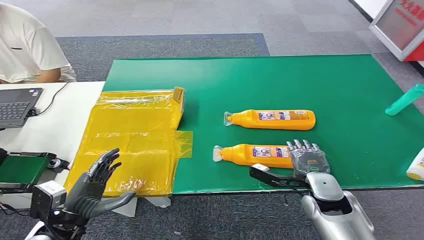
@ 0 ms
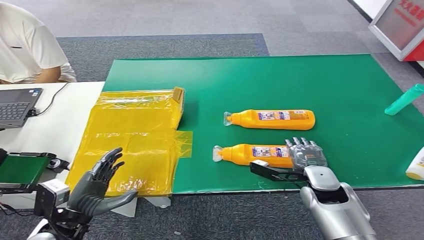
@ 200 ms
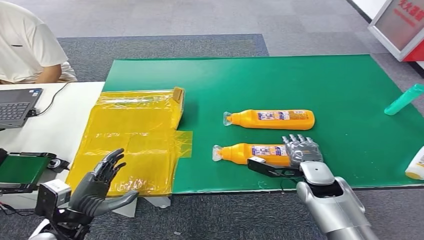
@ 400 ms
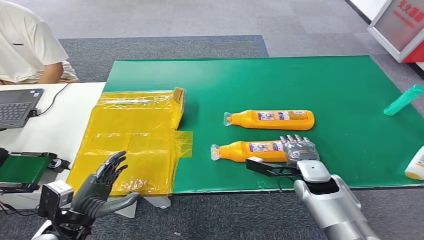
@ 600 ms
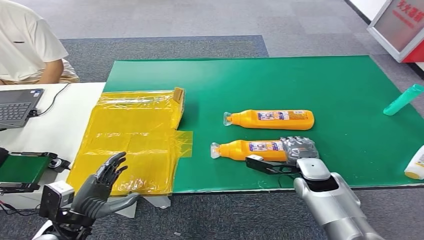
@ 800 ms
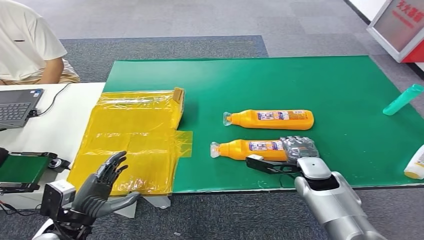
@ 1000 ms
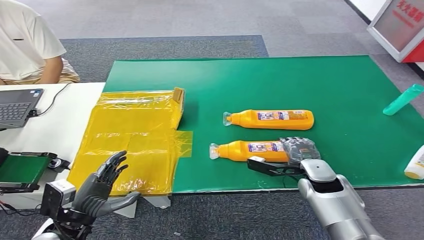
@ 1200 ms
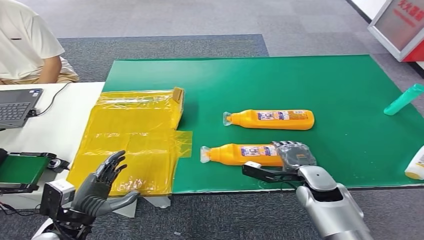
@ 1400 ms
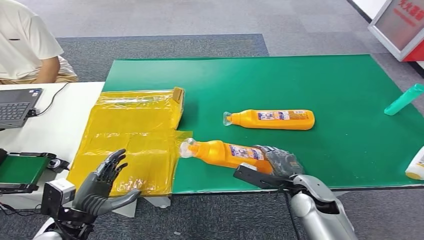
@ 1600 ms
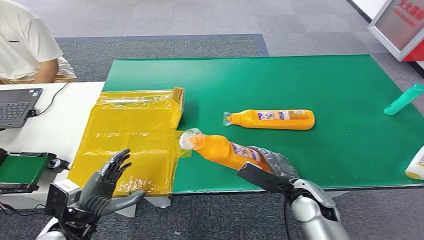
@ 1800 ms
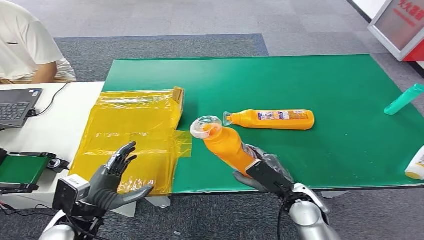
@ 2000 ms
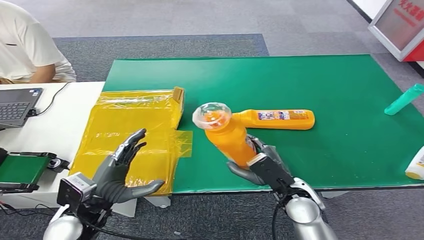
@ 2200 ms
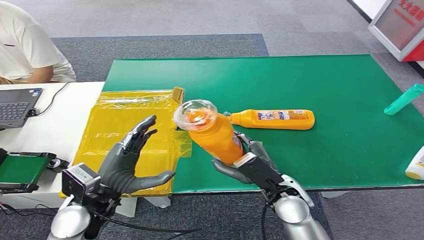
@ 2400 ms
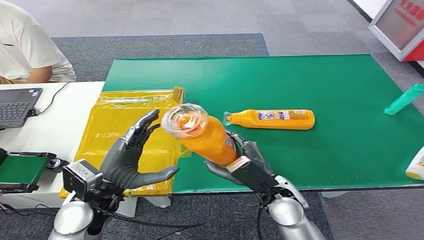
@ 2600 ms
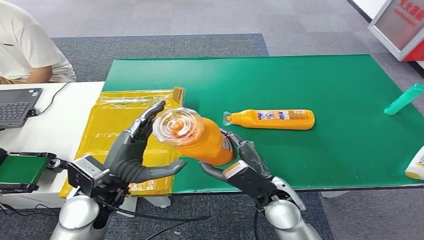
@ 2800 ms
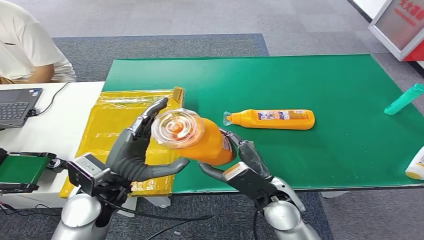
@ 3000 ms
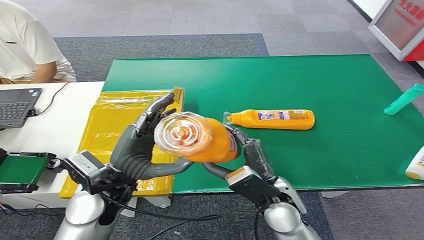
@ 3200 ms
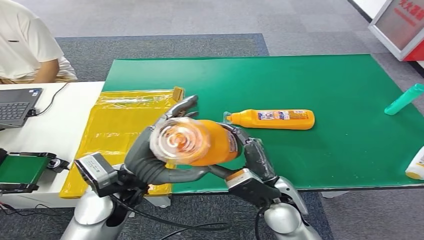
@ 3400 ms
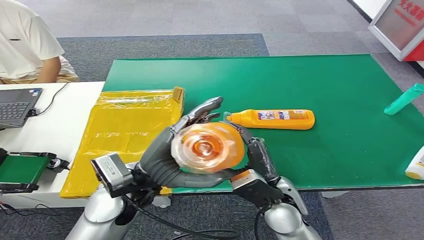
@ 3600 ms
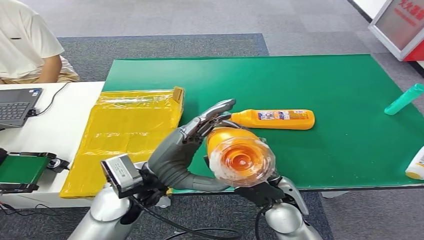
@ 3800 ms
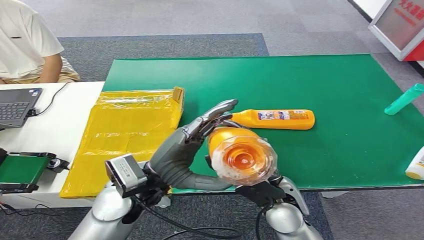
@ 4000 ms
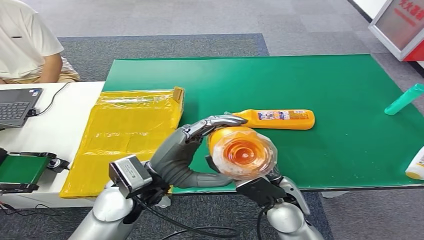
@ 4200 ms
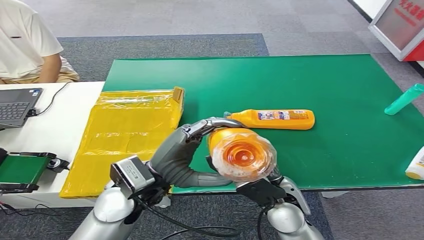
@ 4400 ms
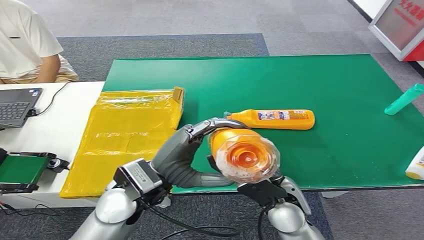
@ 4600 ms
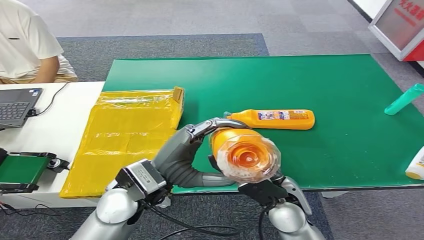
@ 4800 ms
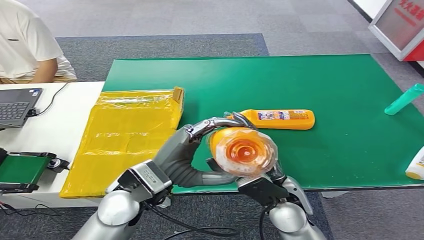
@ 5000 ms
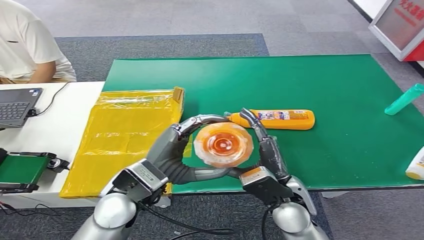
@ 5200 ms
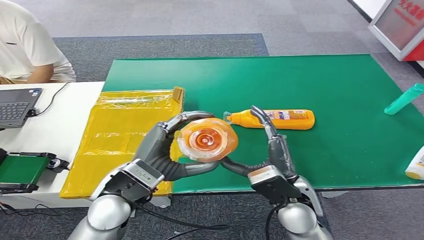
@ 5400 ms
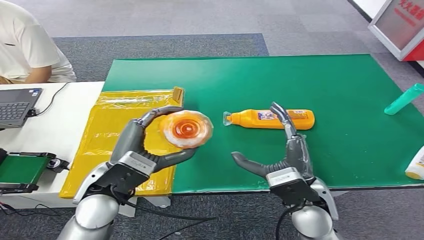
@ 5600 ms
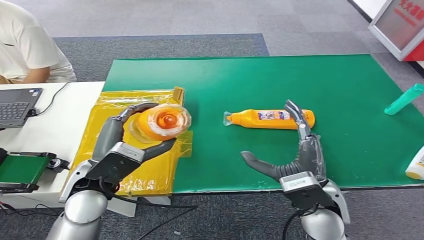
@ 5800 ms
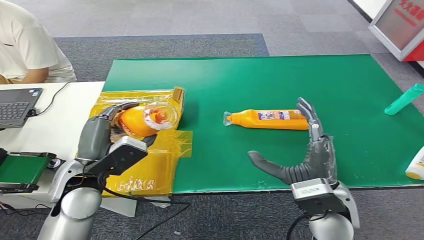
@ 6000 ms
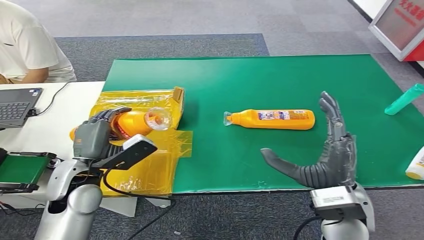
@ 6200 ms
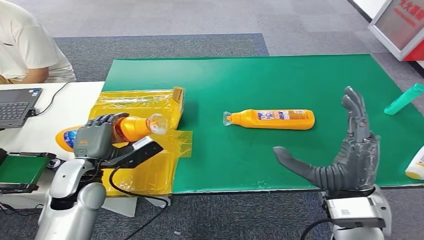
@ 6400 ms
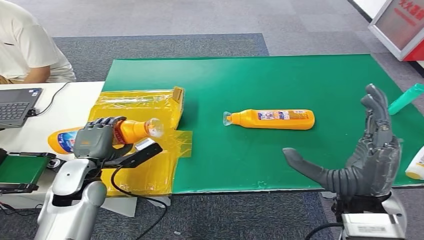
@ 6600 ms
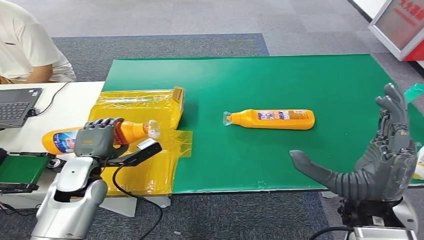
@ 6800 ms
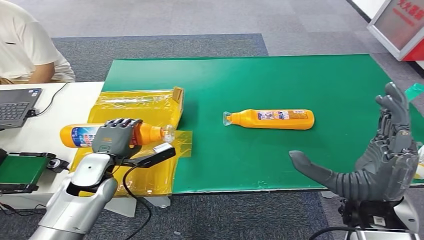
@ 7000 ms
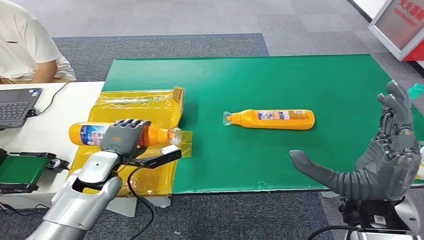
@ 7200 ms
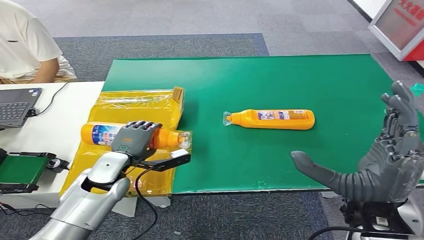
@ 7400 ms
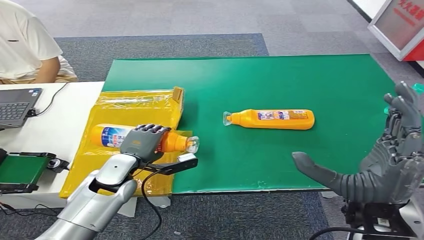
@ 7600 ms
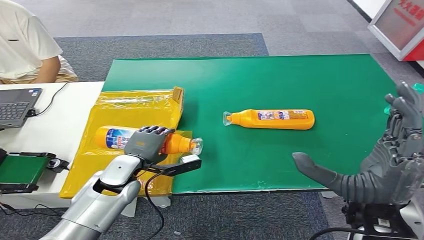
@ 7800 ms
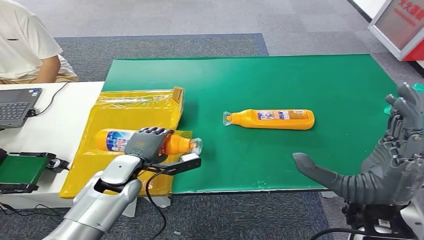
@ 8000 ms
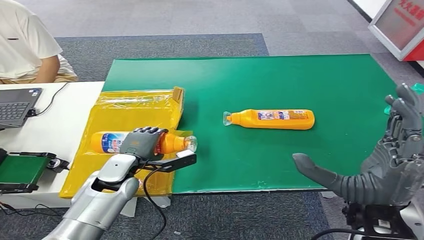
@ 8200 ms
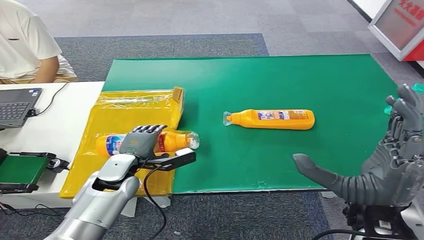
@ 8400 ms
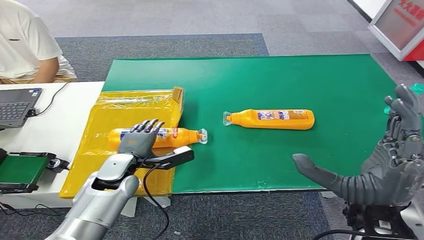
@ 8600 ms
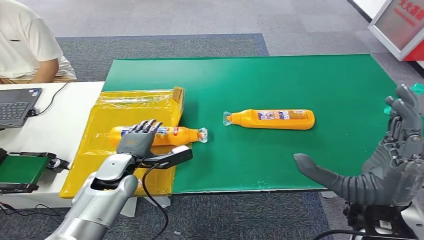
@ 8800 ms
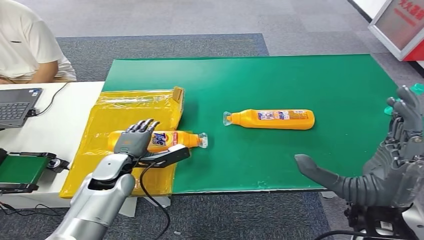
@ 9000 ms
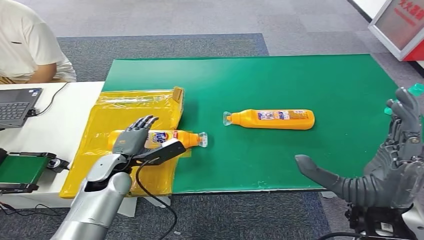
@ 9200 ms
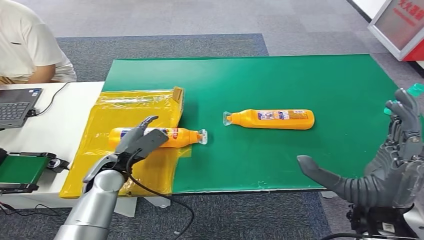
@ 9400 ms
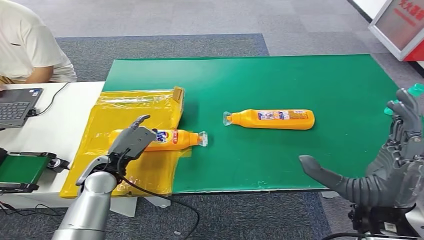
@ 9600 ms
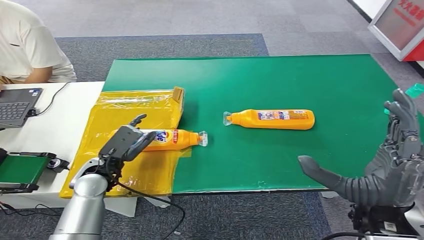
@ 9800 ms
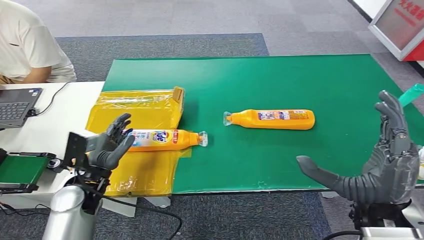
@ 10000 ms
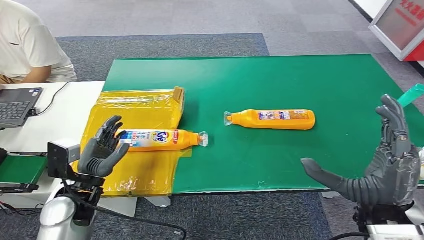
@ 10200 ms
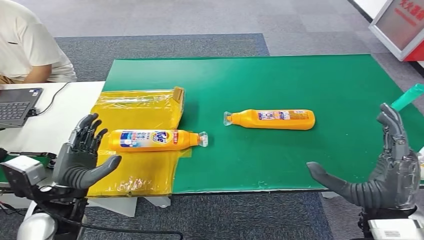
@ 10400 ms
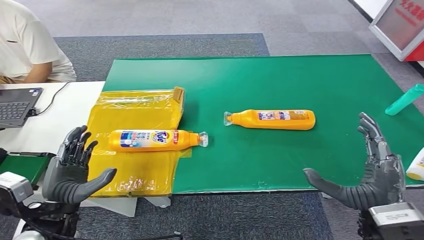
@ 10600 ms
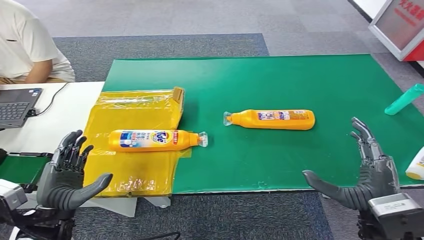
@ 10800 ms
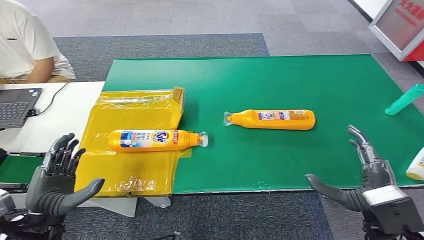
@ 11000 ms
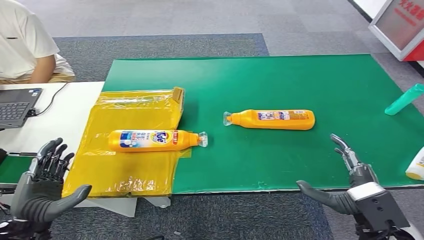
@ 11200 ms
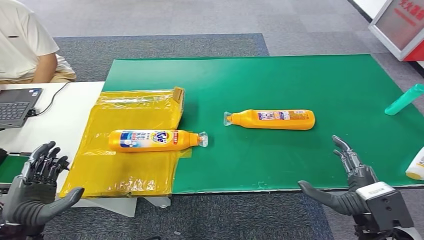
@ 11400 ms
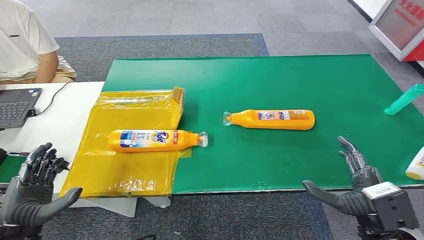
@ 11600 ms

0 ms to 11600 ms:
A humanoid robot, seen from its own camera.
Step, 0 ms to 2800 ms: Pick up the bottle from the table.
Step, 3000 ms to 11600 ms: Turn the bottle to the front side.
2800 ms to 4400 ms: The left hand travels to the right by about 5 cm.
5800 ms to 7200 ms: The right hand goes about 10 cm upward. The left hand heads downward and forward, covering about 10 cm.
7200 ms to 8800 ms: The hands move only a little.
8800 ms to 10200 ms: The left hand goes approximately 10 cm backward.
10200 ms to 11600 ms: The left hand moves backward and to the left, about 10 cm. Meanwhile the right hand moves downward, roughly 5 cm.

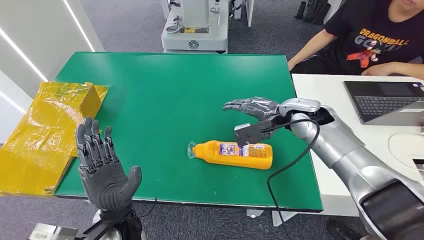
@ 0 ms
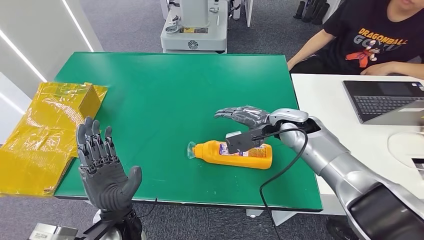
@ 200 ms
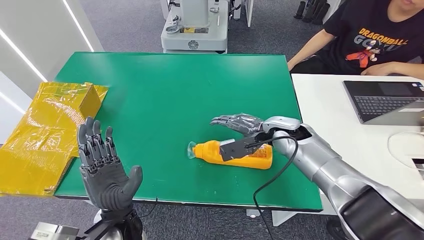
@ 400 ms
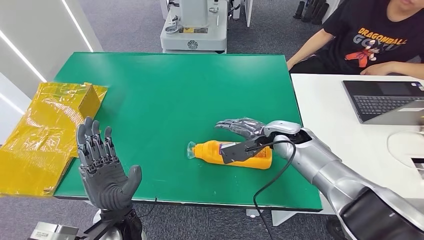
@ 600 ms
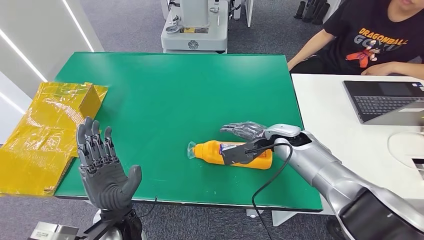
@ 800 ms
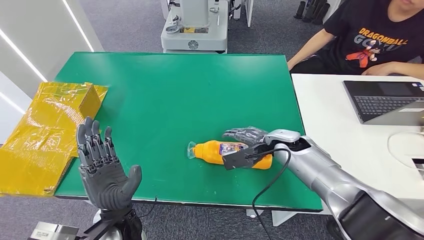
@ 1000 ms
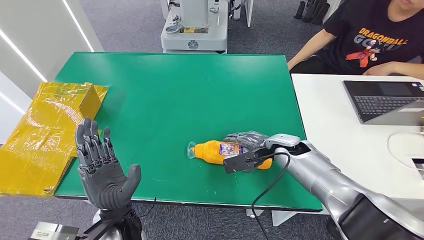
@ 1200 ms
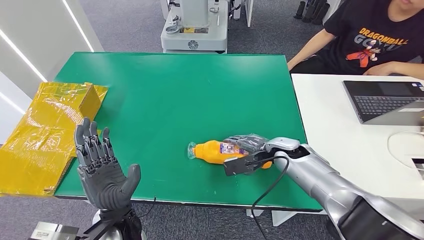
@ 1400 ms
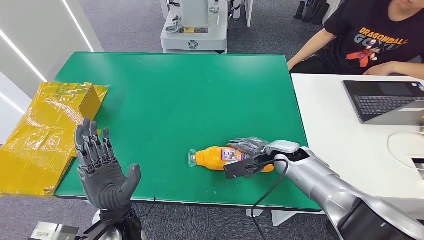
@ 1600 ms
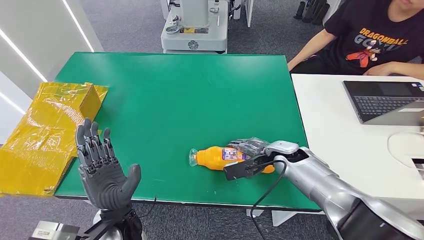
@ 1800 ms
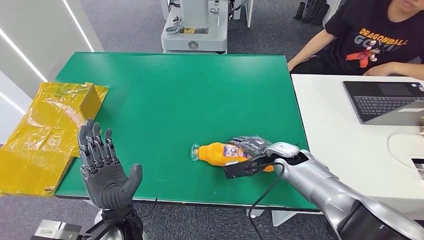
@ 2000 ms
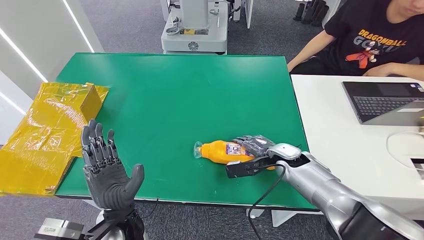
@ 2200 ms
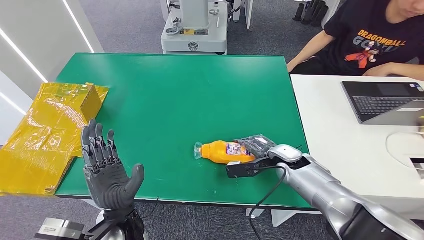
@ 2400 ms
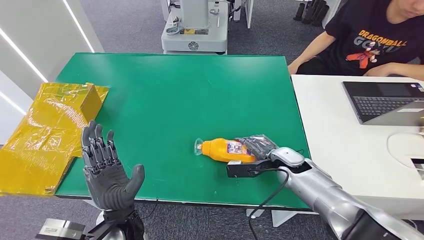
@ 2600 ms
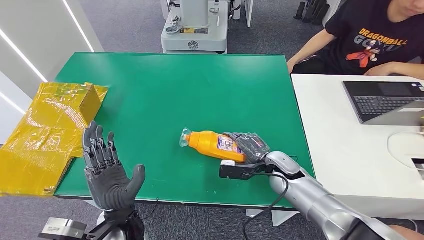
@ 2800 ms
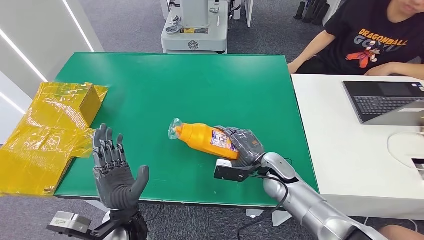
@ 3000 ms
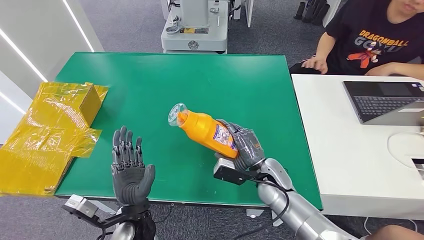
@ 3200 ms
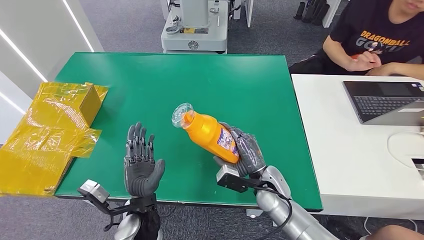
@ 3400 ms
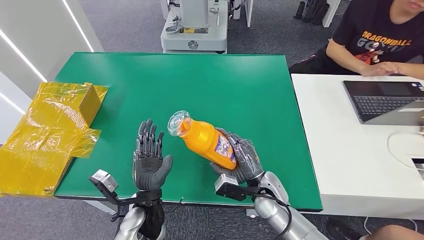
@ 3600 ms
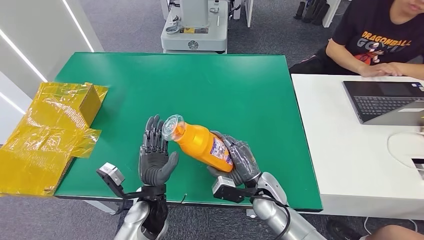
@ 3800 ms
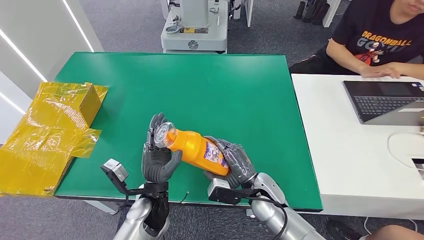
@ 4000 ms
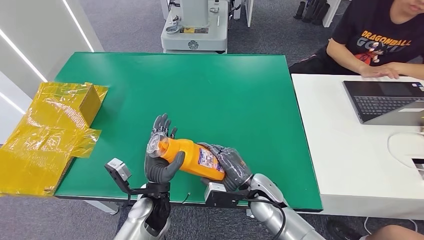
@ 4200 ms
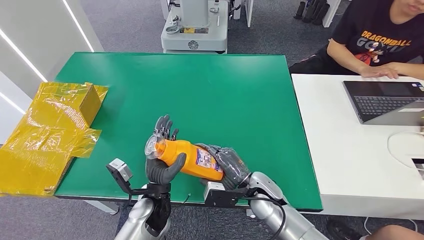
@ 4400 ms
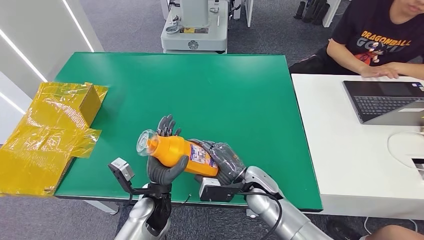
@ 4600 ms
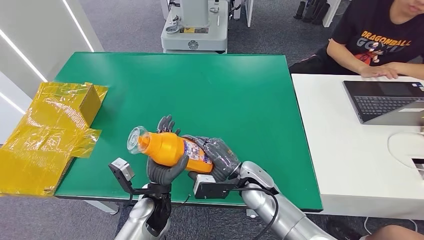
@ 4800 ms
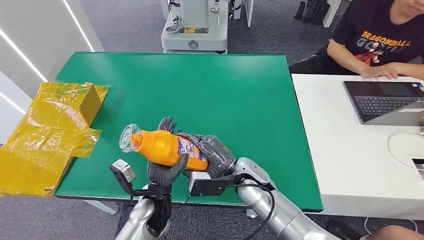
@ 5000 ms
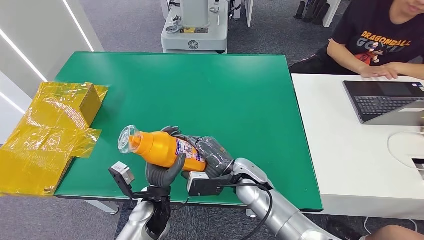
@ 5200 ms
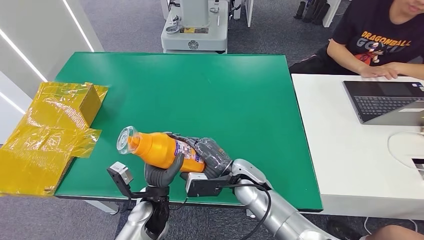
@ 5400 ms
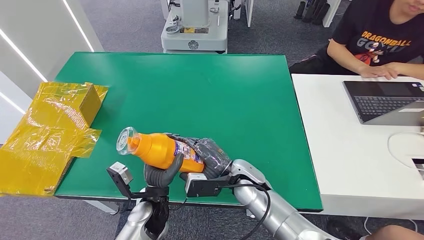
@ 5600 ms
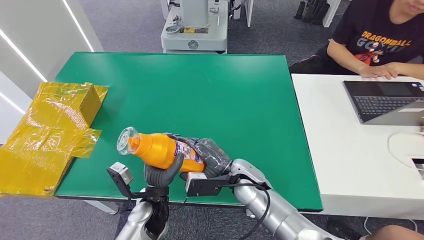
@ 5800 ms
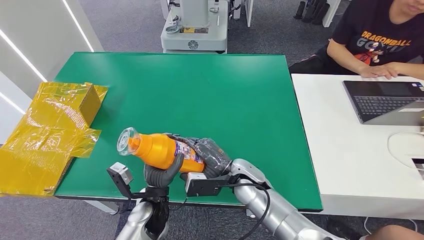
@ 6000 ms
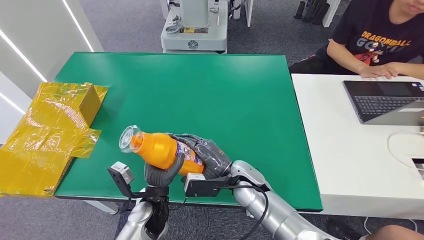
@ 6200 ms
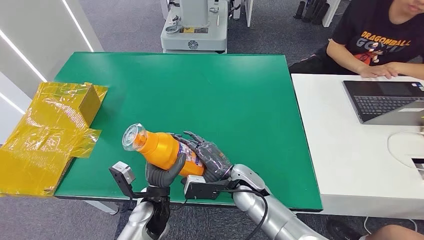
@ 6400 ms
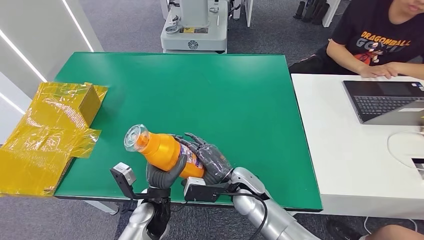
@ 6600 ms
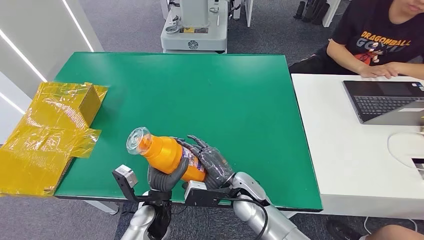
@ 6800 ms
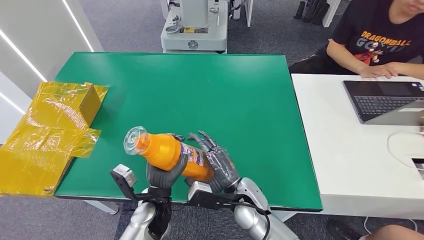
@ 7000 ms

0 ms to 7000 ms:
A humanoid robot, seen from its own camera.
Step, 0 ms to 3800 ms: Pick up the bottle from the table.
1400 ms to 2800 ms: The right hand moves roughly 5 cm.
2800 ms to 4200 ms: The left hand is displaced forward and downward by about 10 cm; the right hand heads to the left and backward, covering approximately 10 cm.
4200 ms to 5600 ms: The right hand travels to the left by approximately 5 cm.
5600 ms to 7000 ms: The right hand moves roughly 5 cm.
